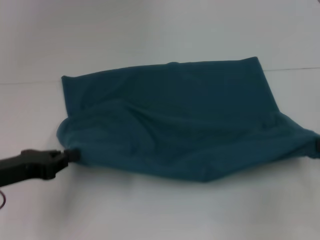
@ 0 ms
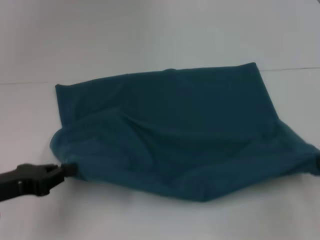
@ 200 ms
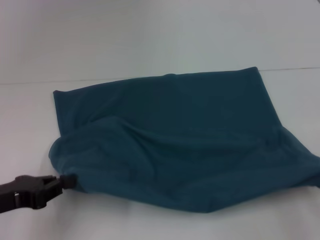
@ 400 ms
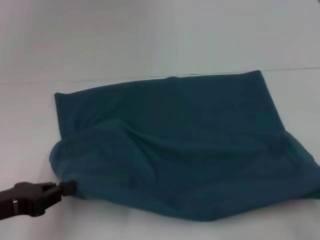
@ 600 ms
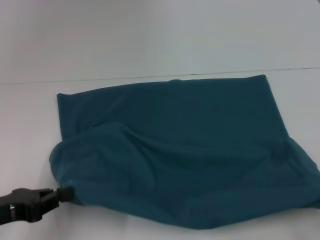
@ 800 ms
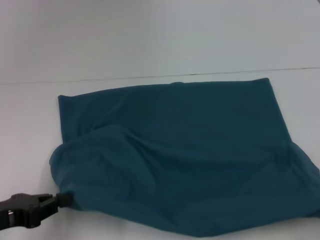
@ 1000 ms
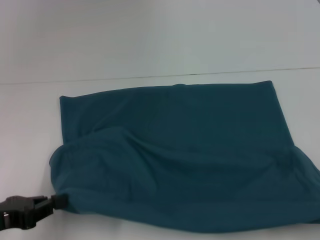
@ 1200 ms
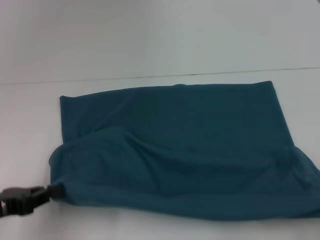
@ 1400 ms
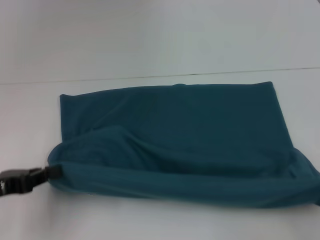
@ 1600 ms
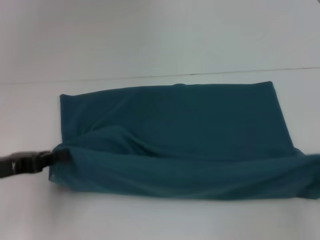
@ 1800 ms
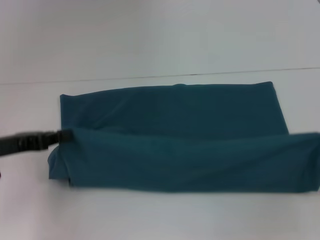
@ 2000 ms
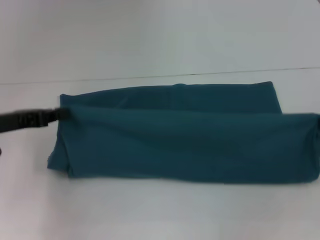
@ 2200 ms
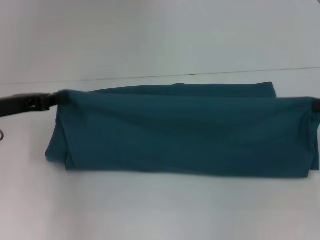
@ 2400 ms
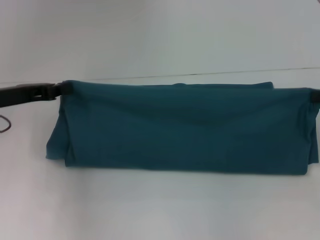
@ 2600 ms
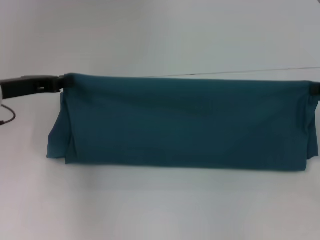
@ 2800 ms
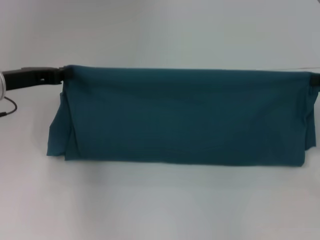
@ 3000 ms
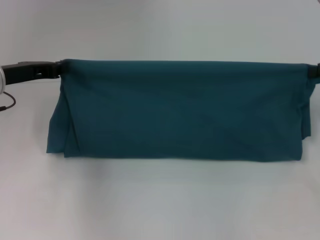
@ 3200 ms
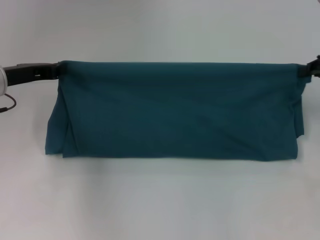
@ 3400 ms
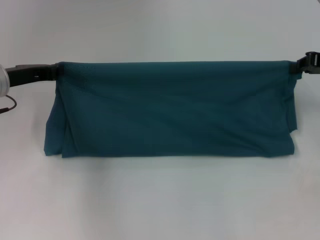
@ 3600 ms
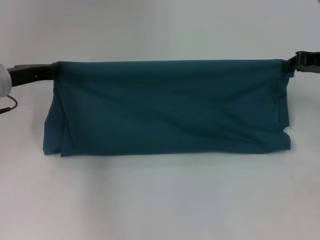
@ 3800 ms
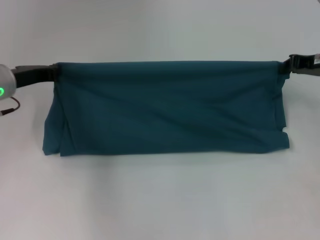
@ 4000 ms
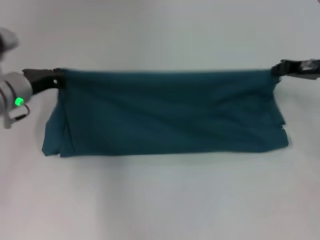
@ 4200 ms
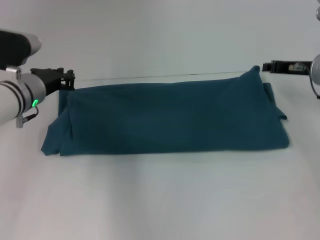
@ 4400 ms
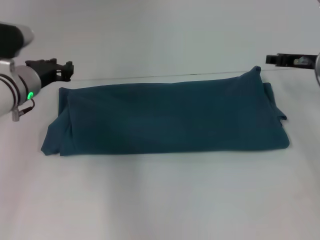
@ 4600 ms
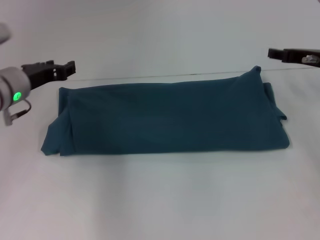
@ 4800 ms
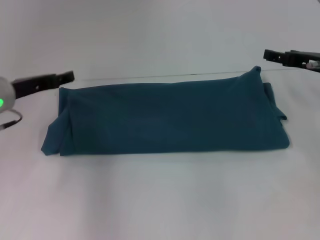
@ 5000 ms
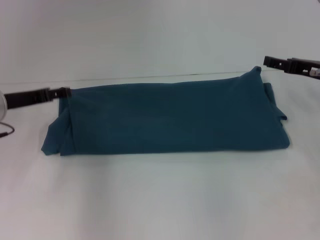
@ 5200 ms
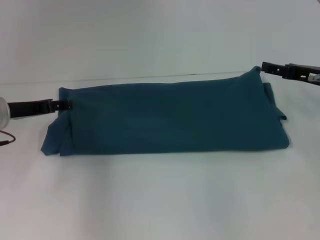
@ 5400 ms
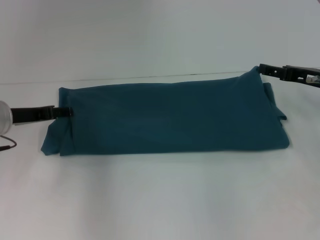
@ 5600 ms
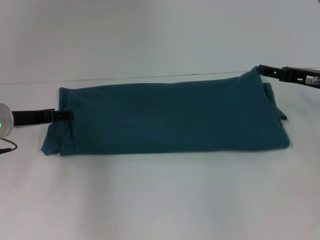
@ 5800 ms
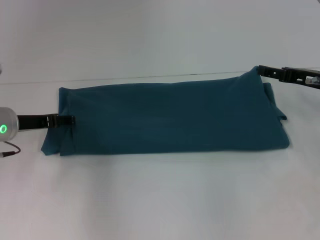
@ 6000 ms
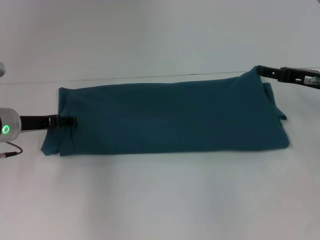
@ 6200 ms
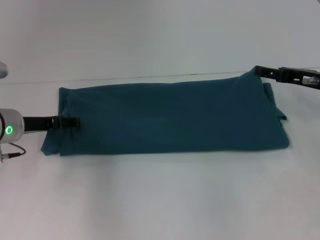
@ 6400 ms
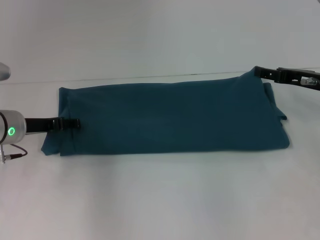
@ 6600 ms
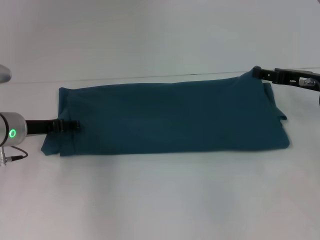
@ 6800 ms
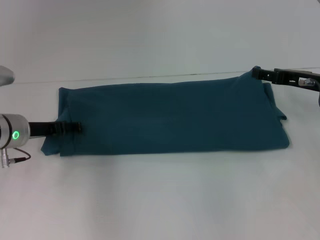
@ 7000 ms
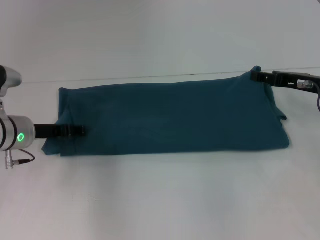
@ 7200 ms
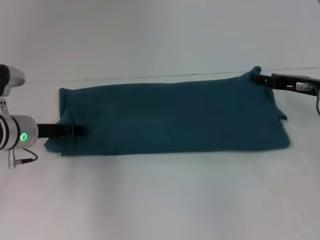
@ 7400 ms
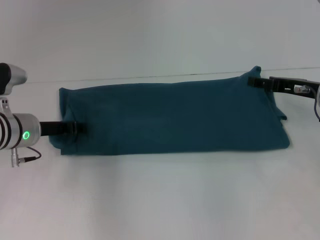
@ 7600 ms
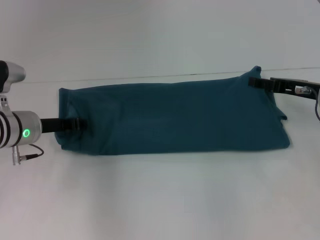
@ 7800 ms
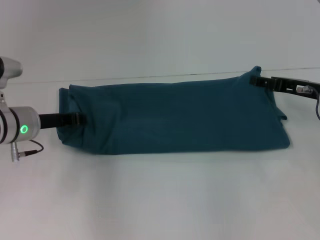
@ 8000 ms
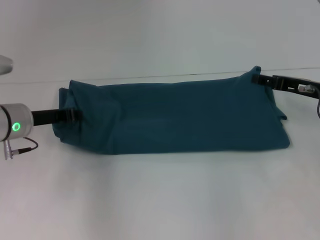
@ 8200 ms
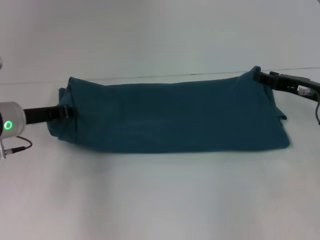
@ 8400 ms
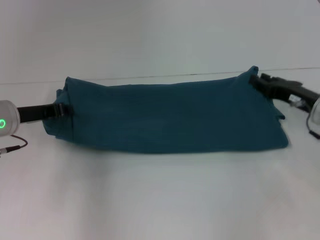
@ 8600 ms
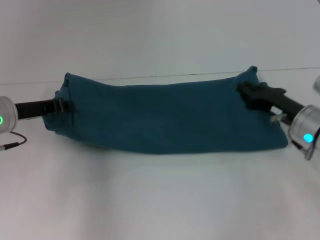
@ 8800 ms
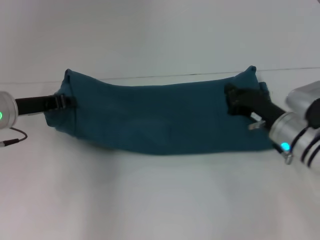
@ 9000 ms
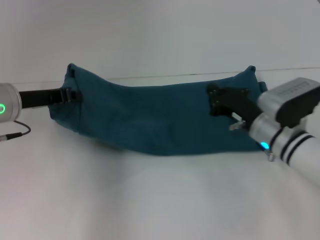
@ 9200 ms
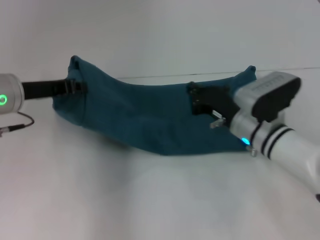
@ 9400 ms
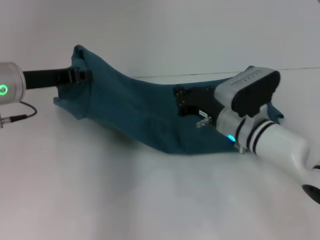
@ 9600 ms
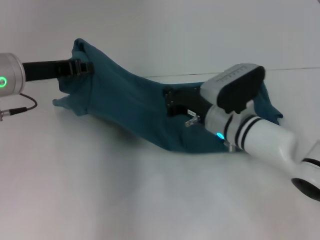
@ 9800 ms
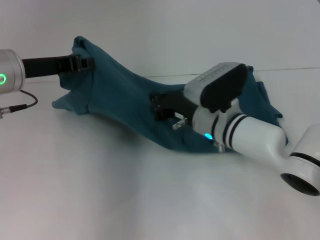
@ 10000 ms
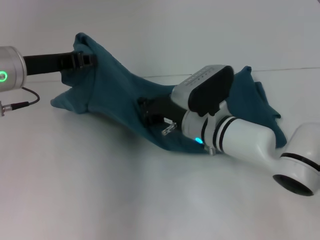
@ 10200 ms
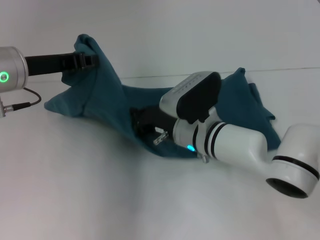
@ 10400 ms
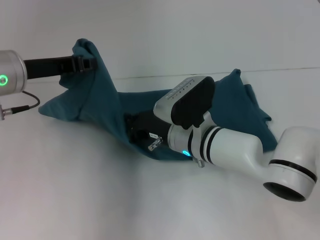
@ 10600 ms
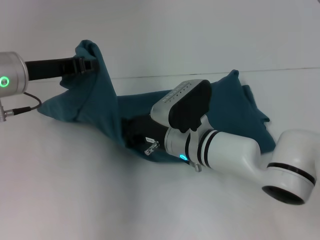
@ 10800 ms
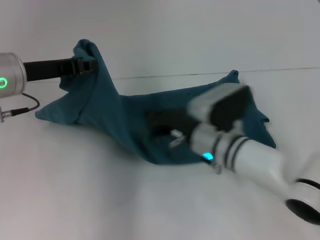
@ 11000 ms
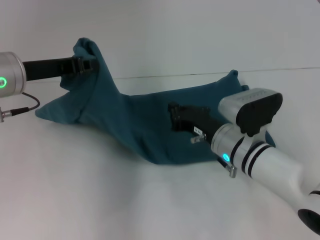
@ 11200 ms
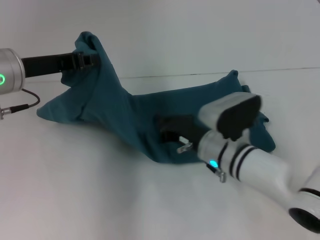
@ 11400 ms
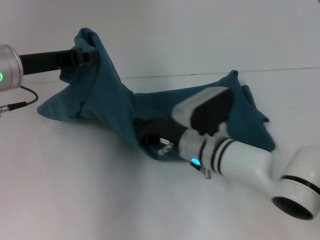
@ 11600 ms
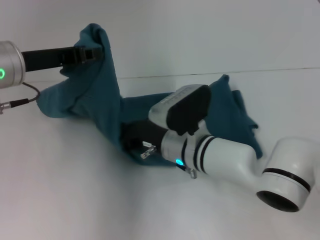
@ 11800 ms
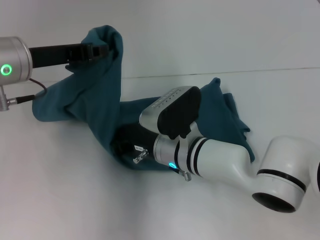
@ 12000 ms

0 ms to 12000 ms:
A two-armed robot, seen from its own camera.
Step, 1200 ms to 5000 ms: Fold the clothes to the left.
Step, 1200 ms to 5000 ms: Fold the clothes to the right.
0 ms to 1600 ms: The right gripper shifts about 10 cm backward.
1600 ms to 3000 ms: The left gripper heads forward, covering approximately 15 cm, while the right gripper heads forward and upward, covering approximately 20 cm.
3000 ms to 4400 ms: The right gripper is displaced to the left, forward and downward by roughly 15 cm. Meanwhile the left gripper shifts roughly 10 cm to the right and downward.
4400 ms to 6000 ms: The left gripper moves some 5 cm, and opens. The right gripper changes place by approximately 5 cm, and opens.
6000 ms to 7600 ms: The grippers stay close to where they were, moving slightly.
7600 ms to 9000 ms: The right gripper heads to the left and downward, covering approximately 10 cm, and closes, while the left gripper shifts roughly 5 cm upward, and closes its fingers.
9000 ms to 10400 ms: The left gripper goes approximately 5 cm upward, while the right gripper moves to the left, some 15 cm.

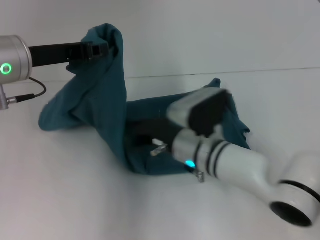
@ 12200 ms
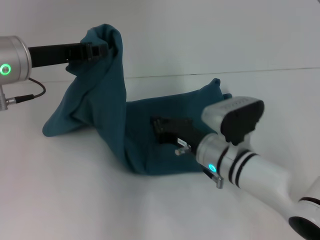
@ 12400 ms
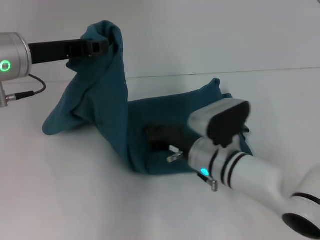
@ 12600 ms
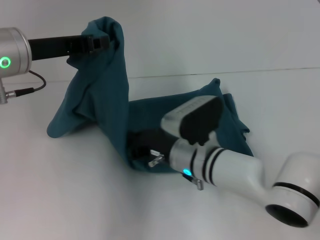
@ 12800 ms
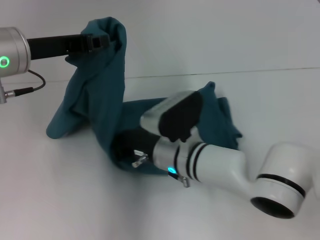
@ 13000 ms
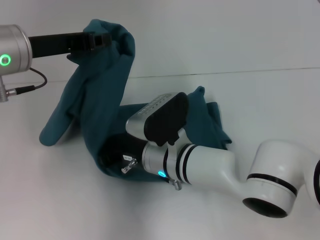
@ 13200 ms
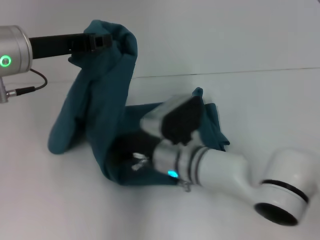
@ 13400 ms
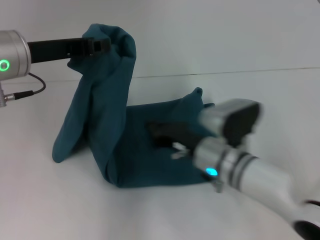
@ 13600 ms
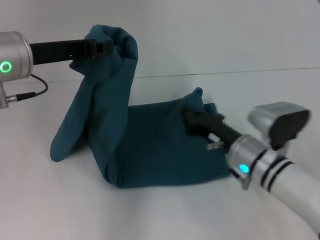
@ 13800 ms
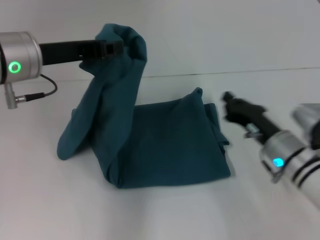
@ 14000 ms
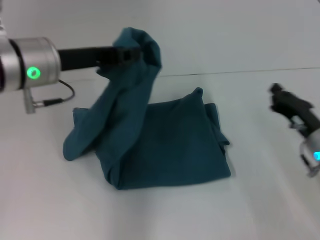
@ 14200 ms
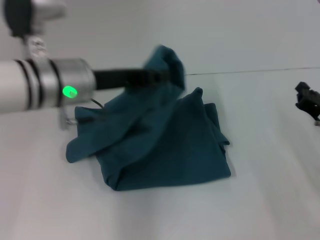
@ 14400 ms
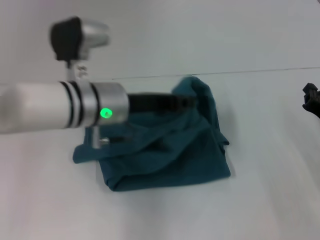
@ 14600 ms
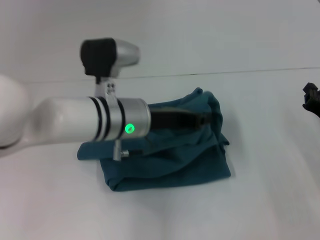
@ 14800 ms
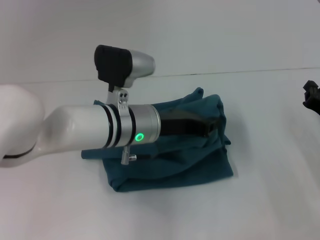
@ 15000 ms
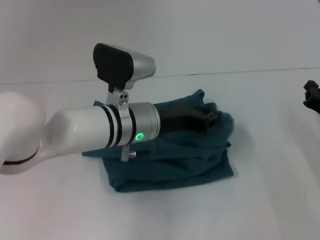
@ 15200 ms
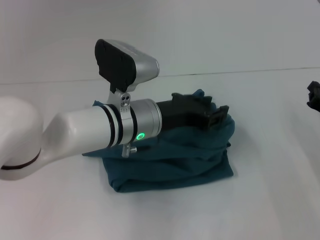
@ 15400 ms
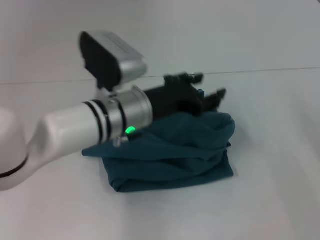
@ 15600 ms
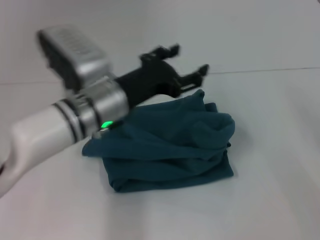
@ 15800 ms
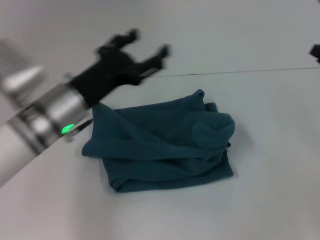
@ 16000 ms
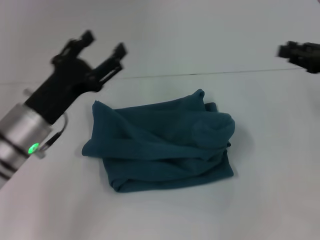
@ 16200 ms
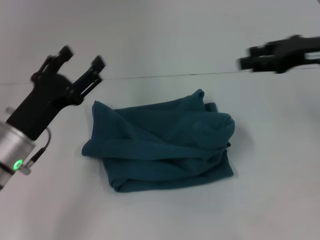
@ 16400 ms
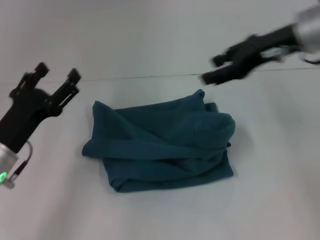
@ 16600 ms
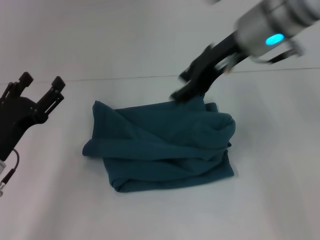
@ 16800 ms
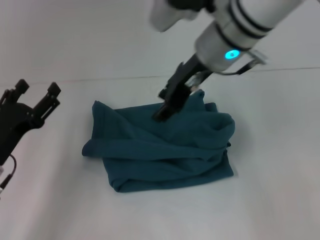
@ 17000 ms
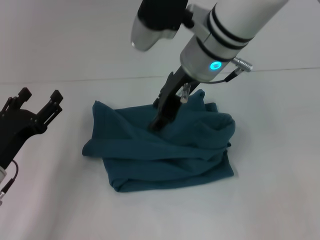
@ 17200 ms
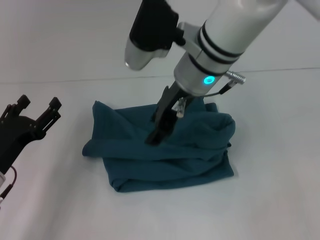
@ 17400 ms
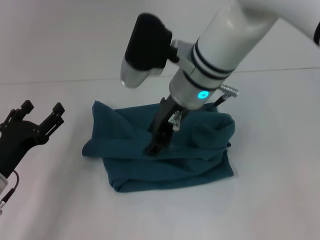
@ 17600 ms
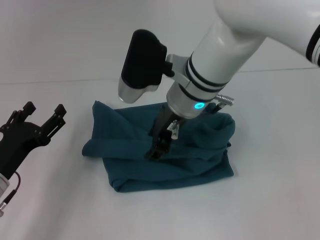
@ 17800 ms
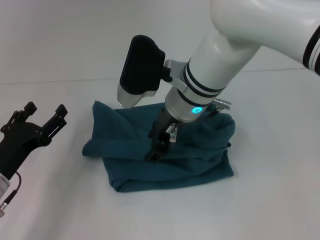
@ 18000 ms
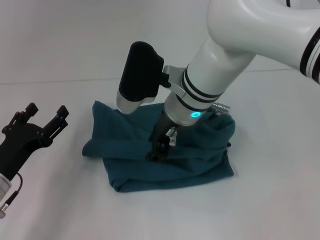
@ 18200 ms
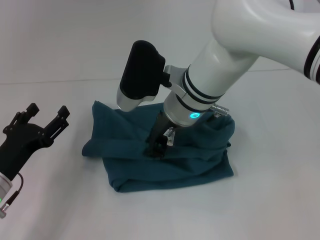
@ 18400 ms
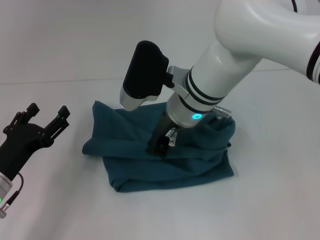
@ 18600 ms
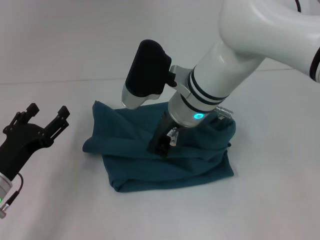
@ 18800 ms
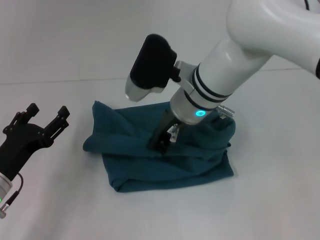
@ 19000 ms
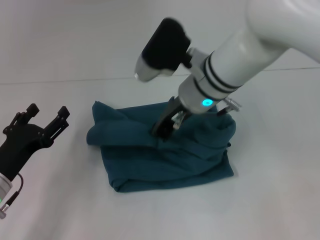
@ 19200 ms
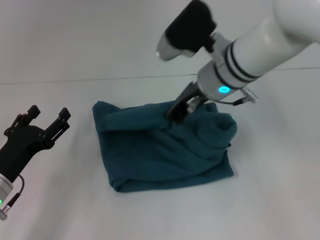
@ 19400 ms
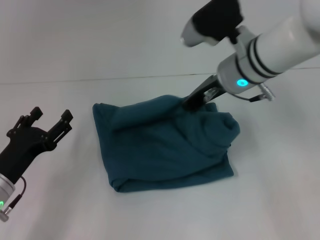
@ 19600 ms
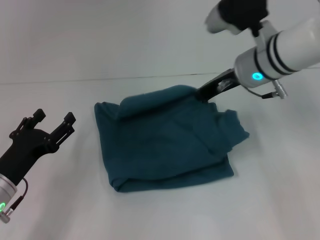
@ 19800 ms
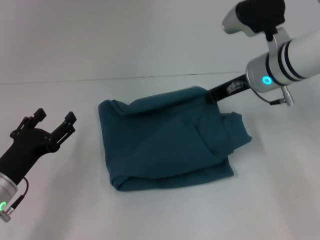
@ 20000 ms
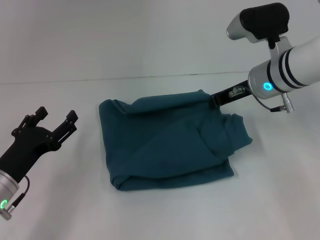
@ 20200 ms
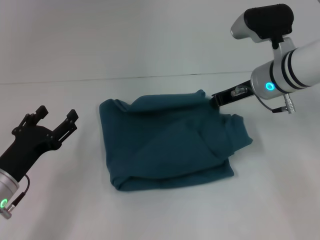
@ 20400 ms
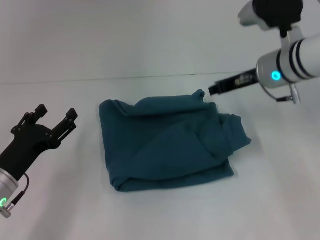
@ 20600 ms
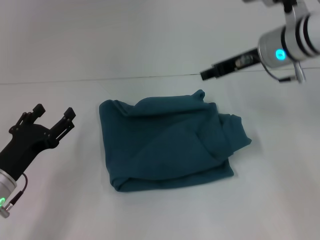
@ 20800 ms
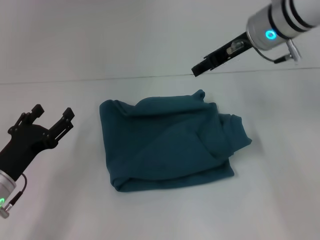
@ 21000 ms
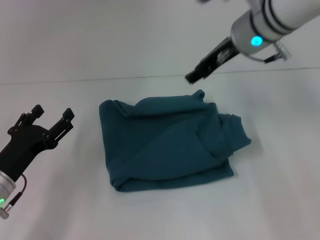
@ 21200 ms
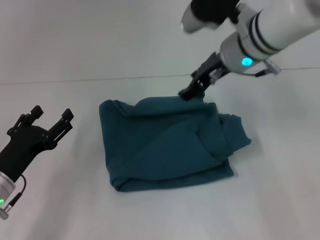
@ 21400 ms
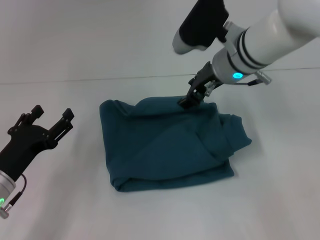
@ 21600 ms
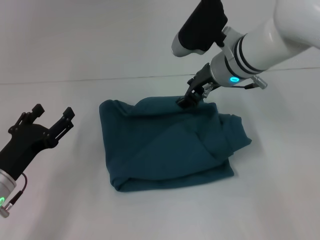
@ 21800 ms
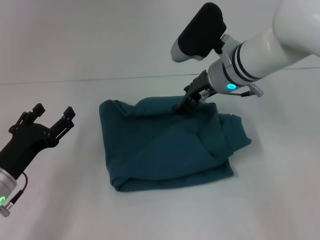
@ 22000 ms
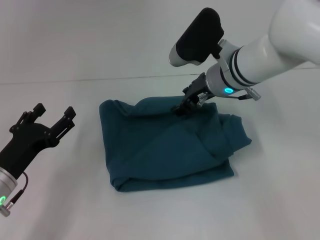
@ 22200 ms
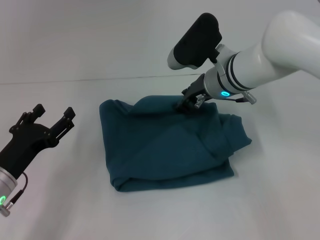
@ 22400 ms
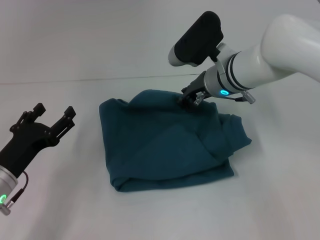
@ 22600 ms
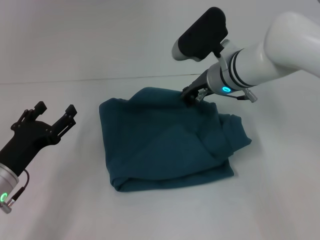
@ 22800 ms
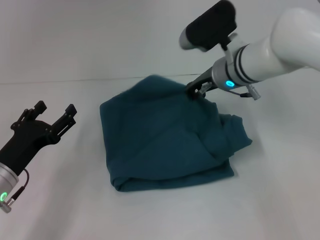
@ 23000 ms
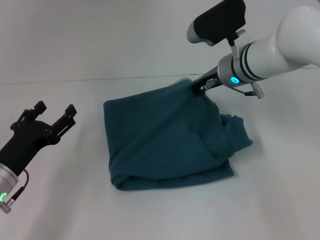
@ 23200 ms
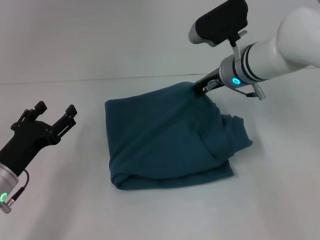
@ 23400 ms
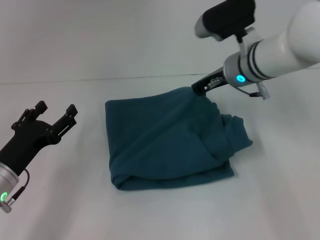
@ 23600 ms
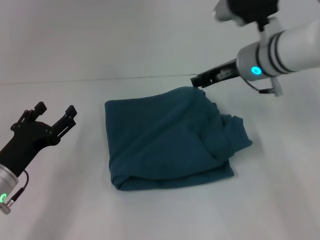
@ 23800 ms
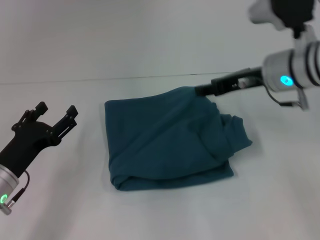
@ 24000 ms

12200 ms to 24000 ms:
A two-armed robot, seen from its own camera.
Step, 13600 ms to 15400 ms: Fold the clothes to the left.
13600 ms to 15200 ms: The left gripper moves to the right and downward, about 20 cm; the right gripper goes roughly 20 cm to the right.
15200 ms to 16600 ms: The left gripper heads to the left, covering roughly 20 cm, and opens up. Meanwhile the right gripper heads upward and to the left, covering approximately 25 cm, and opens.
16600 ms to 18200 ms: The right gripper goes about 20 cm to the left and downward.
18200 ms to 19600 ms: The right gripper goes some 10 cm to the right, and closes up.
19600 ms to 21000 ms: The right gripper heads upward, covering roughly 5 cm, and opens its fingers.
21000 ms to 22600 ms: The right gripper shifts approximately 10 cm downward and to the left.
22600 ms to 24000 ms: The right gripper travels to the right by some 10 cm.
